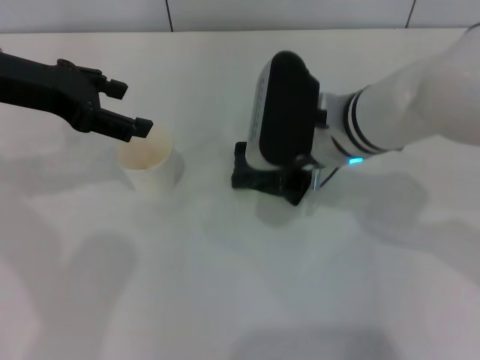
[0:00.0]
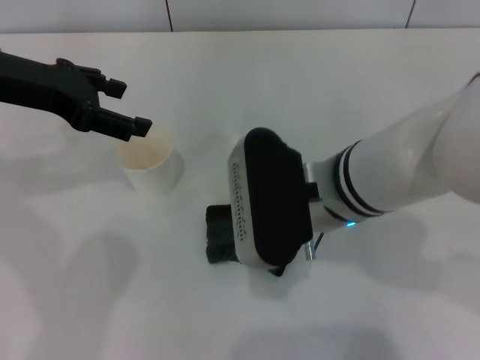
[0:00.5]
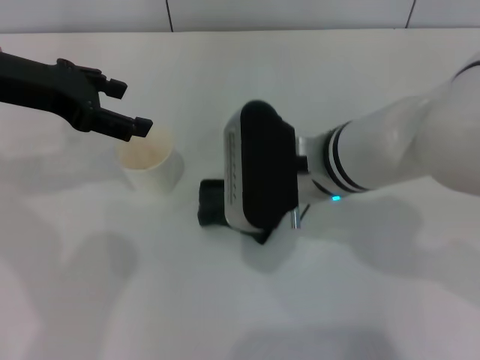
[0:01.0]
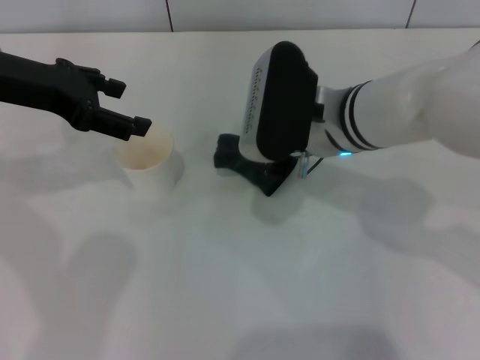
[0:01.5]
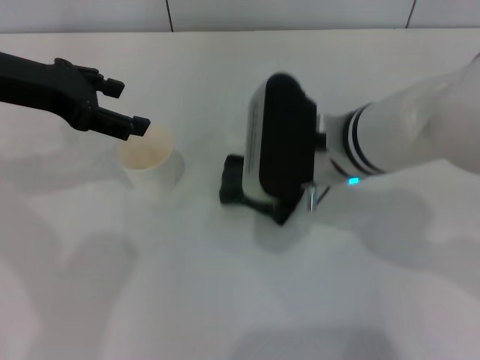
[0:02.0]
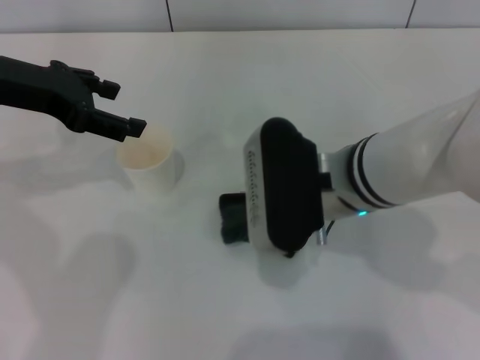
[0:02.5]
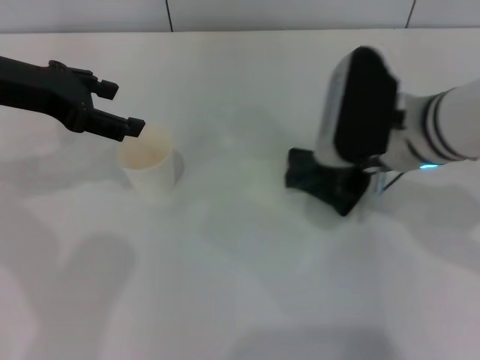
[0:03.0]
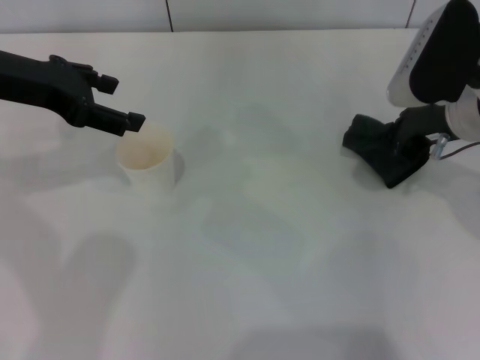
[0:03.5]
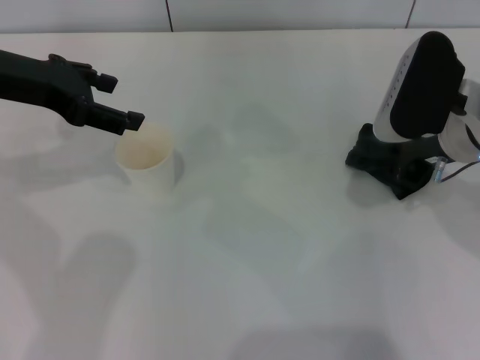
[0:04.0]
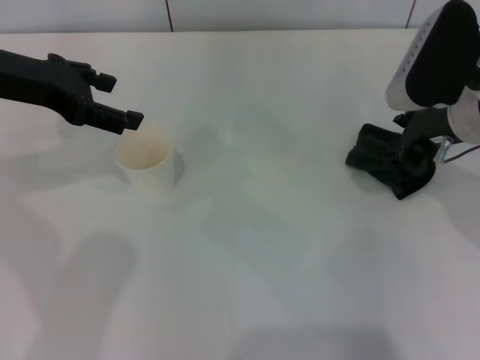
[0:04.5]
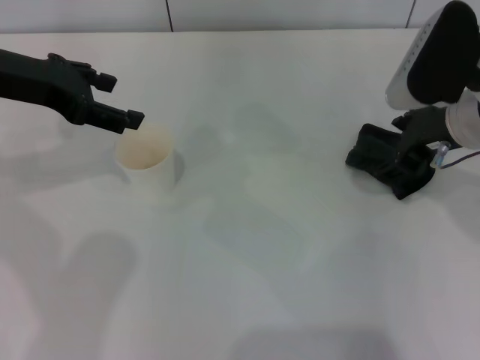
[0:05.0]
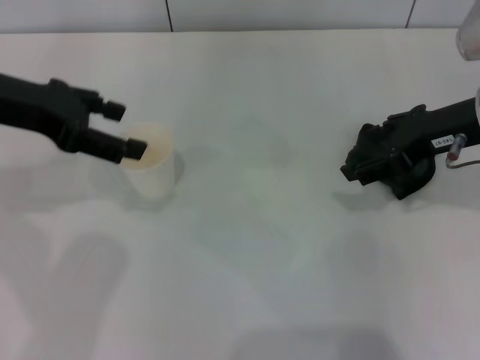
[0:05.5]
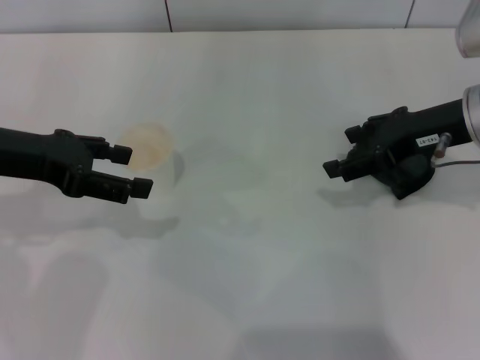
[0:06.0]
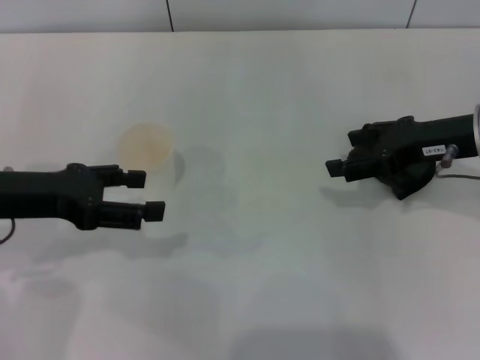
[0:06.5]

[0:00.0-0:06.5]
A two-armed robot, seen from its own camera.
Step, 0:00.0 to 0:02.0: Wipe the stains off the table with the right gripper.
Step, 0:03.0 to 0:05.5: Place the rag on the table with the right gripper.
0:02.0 to 0:04.5: The right gripper is displaced to the right by approximately 15 cm, and opens up.
0:04.5 to 0:06.5: The right gripper opens its fingers. Meanwhile the left gripper heads downward and backward, covering approximately 10 cm.
